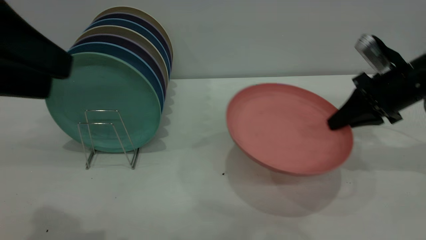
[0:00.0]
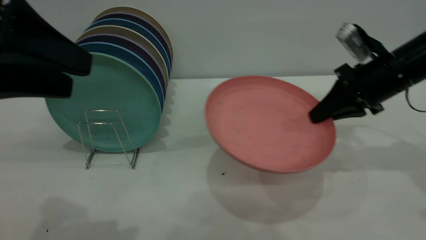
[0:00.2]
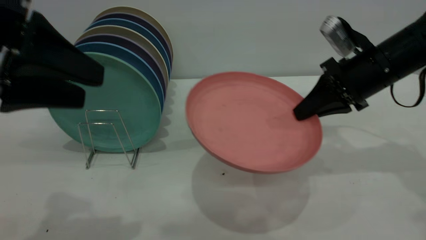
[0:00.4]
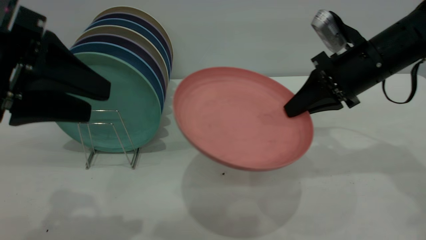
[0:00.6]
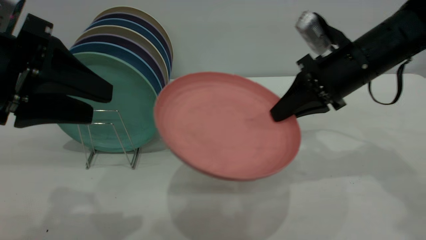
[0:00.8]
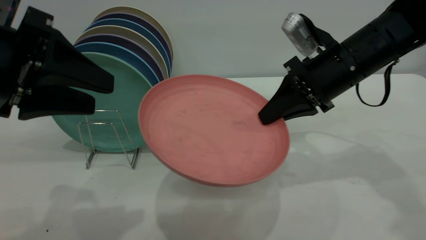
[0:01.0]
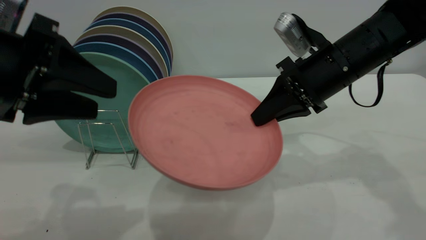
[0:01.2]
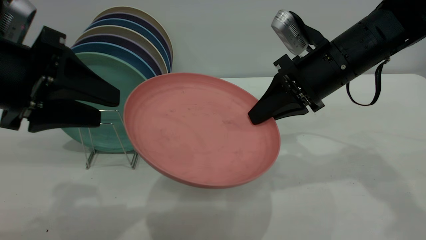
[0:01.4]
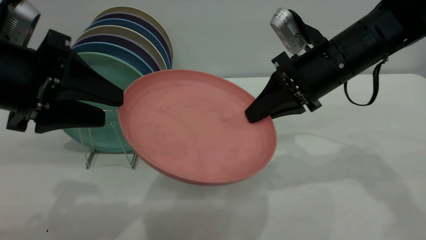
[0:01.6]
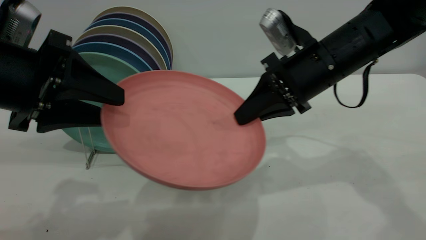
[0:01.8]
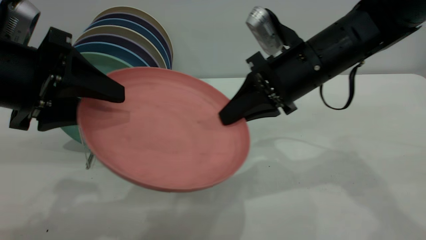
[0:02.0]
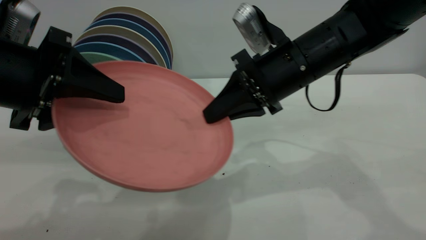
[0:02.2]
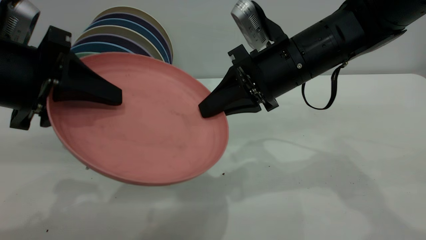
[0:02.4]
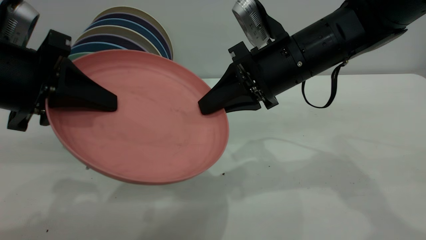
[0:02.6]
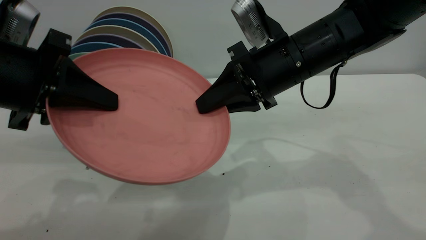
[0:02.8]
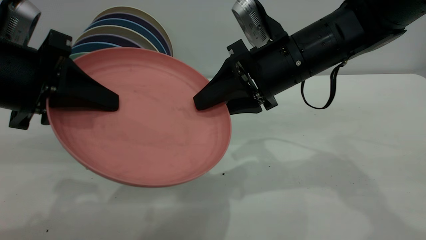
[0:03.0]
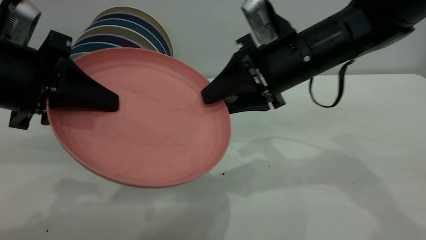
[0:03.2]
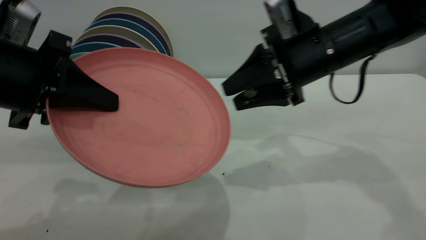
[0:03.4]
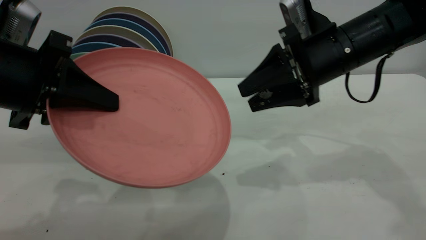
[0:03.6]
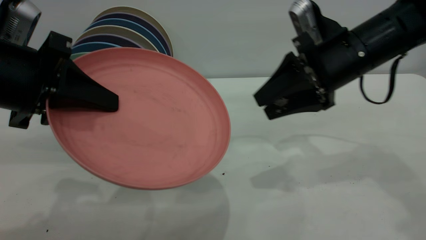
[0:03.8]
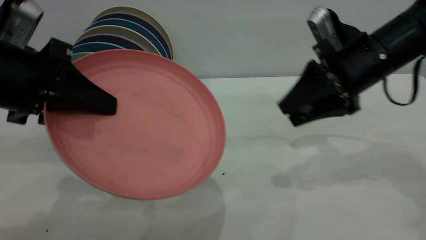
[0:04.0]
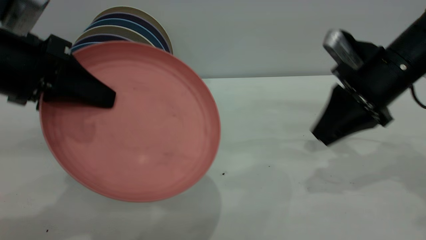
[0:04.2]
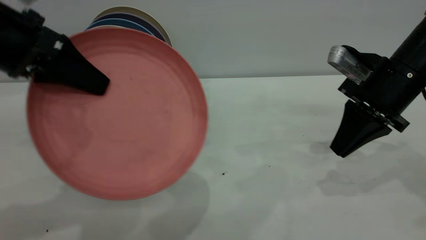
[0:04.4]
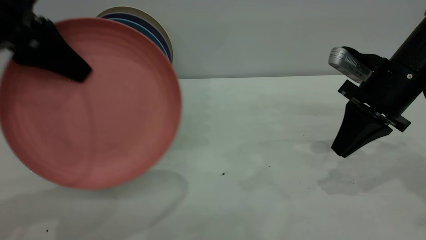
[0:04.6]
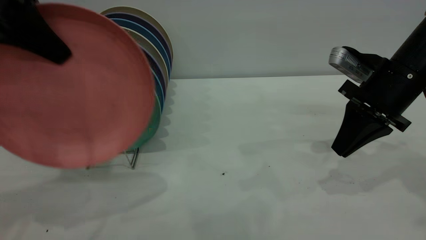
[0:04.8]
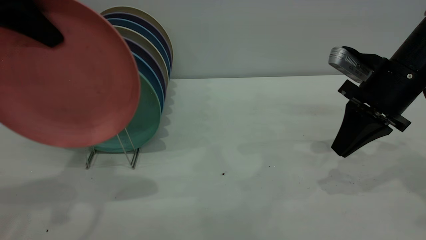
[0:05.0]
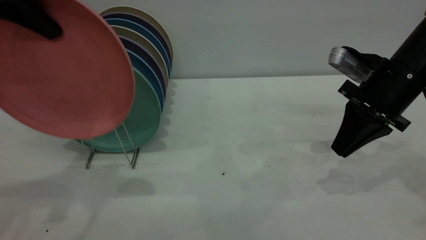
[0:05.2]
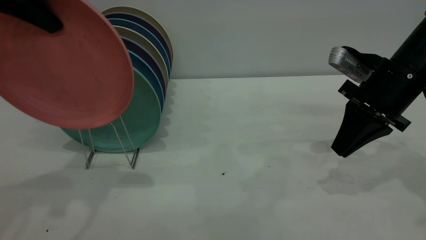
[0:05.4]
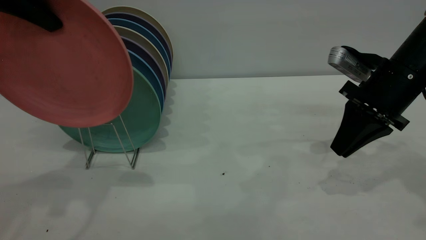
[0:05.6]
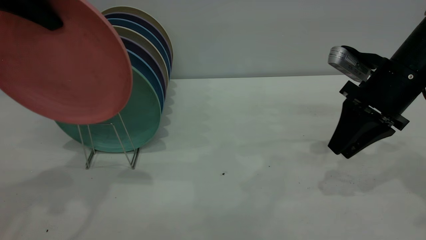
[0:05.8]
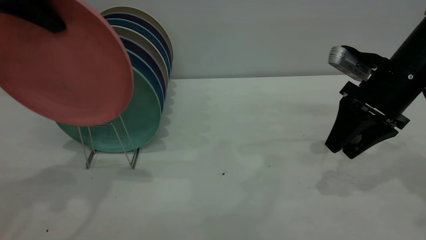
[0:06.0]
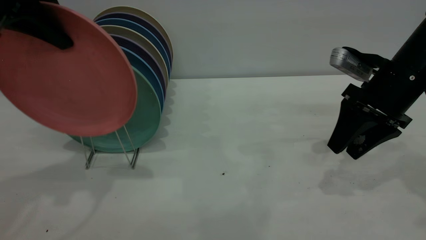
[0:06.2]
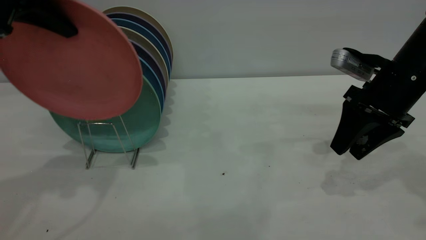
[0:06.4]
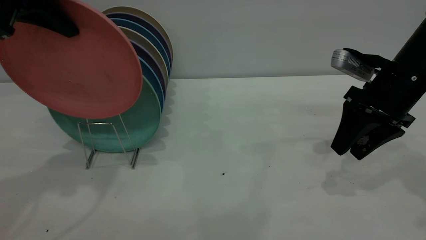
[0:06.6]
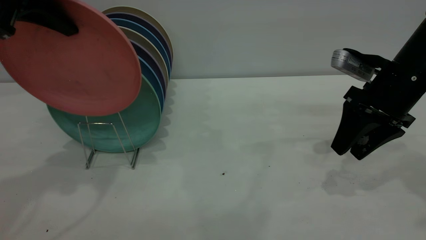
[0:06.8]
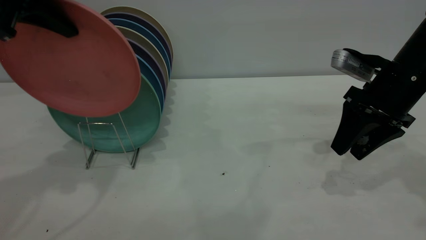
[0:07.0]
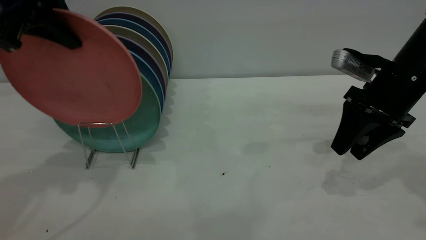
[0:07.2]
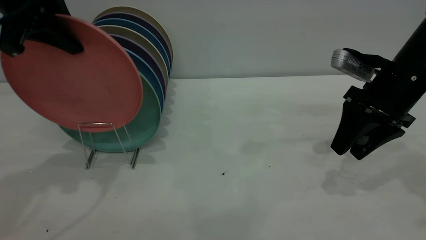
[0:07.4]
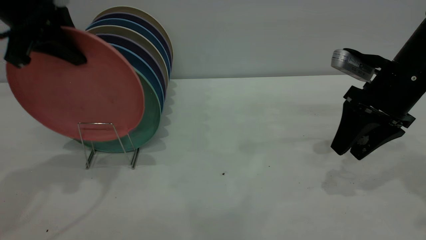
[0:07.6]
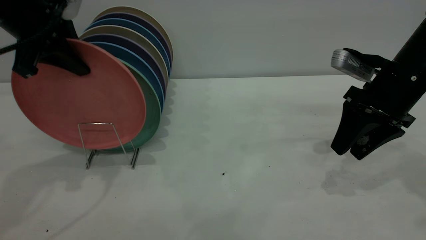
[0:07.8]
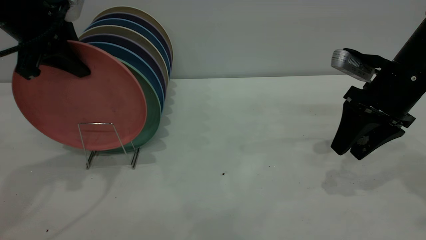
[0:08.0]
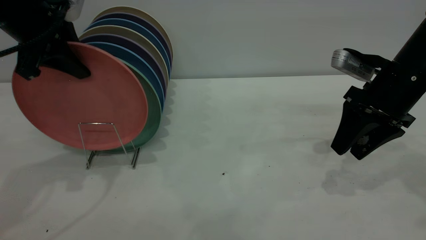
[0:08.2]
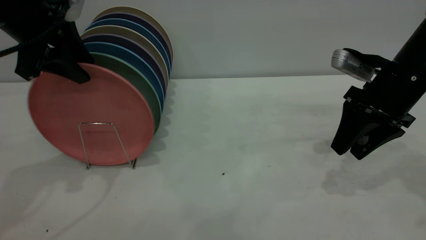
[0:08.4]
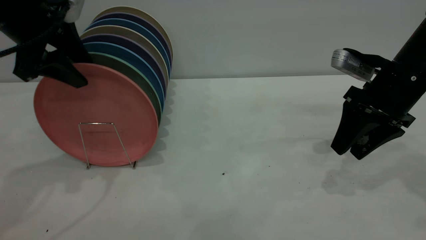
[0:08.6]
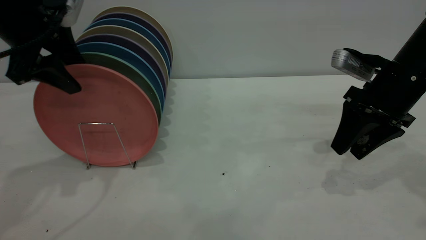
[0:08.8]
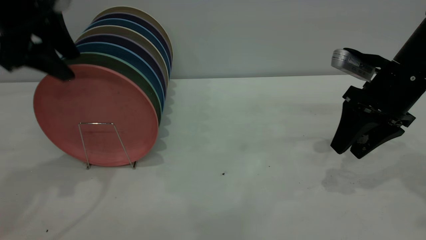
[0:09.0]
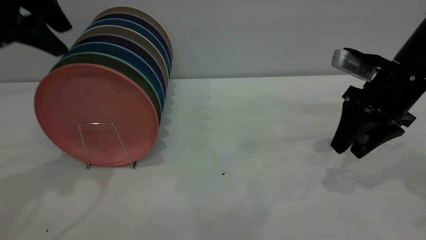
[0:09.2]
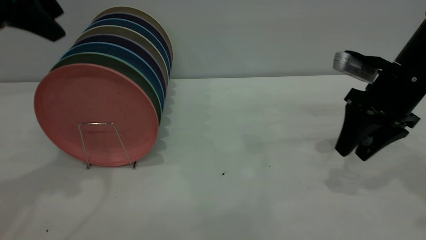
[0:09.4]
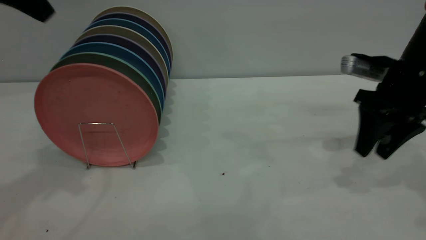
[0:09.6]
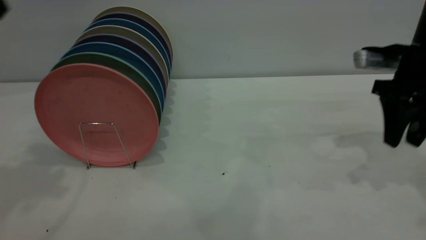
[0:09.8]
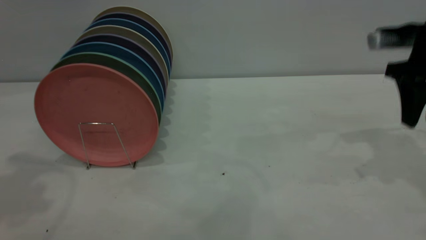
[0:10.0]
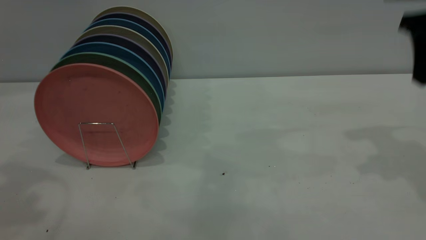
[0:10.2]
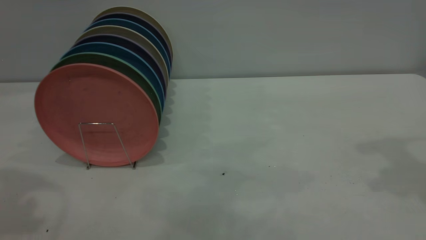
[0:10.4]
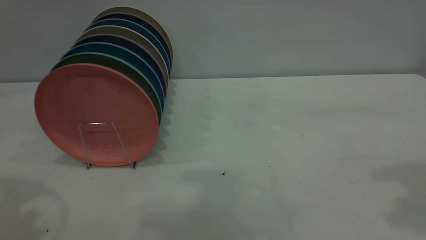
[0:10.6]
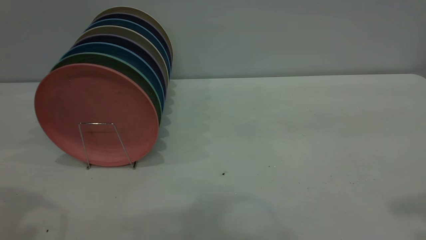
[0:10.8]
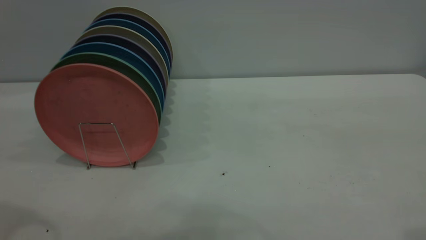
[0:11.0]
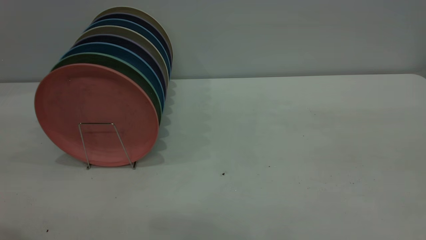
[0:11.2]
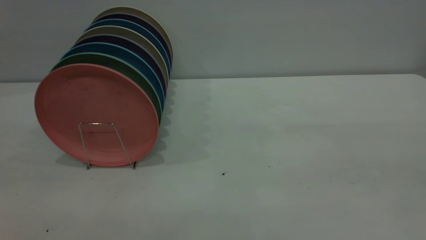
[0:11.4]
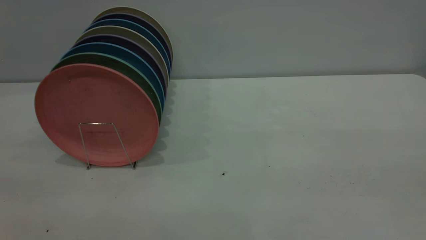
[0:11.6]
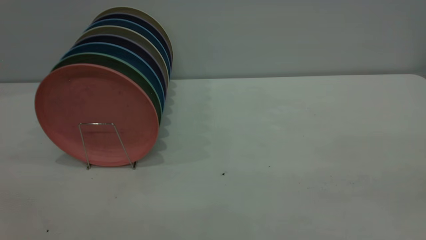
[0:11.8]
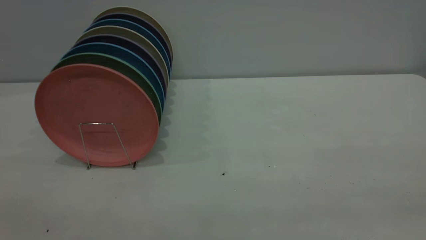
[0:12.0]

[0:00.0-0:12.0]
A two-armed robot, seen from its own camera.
Task of the whole recording: the right gripper grasp the pink plate, the right gripper pass the pink plate to the left gripper, and the left gripper place the pink plate on the plate rack.
Step, 0:00.0 to 0:03.4: Pass the plate from the right gripper to the left gripper.
Step, 0:03.6 to 0:09.0: Place the plate on the shelf.
0:00.0 to 0:01.6: The right gripper heads to the left, covering some 15 cm; the left gripper travels downward by approximately 10 cm.
0:01.6 to 0:03.0: The left gripper closes up, while the right gripper is displaced to the left by about 5 cm, and opens.
0:03.0 to 0:04.4: The right gripper travels to the right by some 15 cm, and closes up, while the left gripper ends up approximately 5 cm from where it was.
0:04.4 to 0:06.0: The right gripper opens its fingers, while the left gripper moves upward and forward, some 10 cm.
0:06.0 to 0:07.6: The left gripper is displaced downward by some 5 cm.
0:07.6 to 0:09.0: The left gripper opens up.
0:09.0 to 0:10.4: The left gripper travels upward and backward by some 15 cm; the right gripper travels upward by approximately 20 cm.
